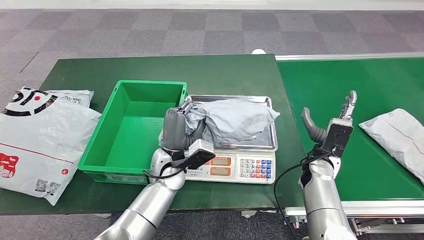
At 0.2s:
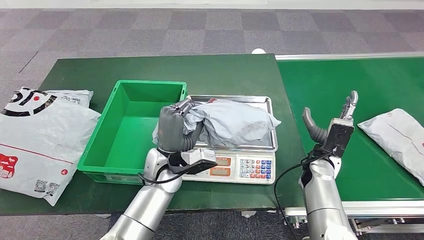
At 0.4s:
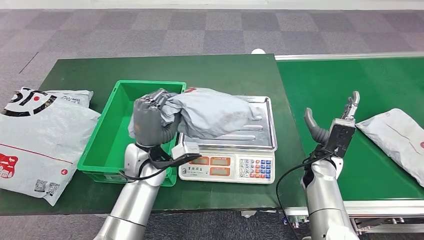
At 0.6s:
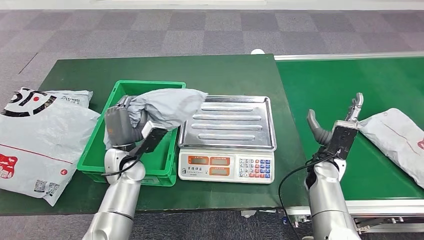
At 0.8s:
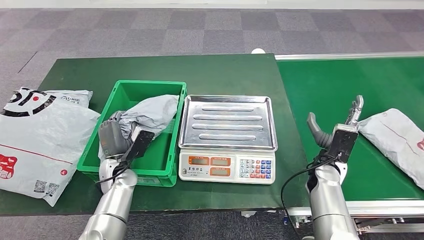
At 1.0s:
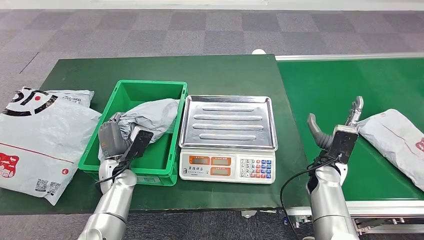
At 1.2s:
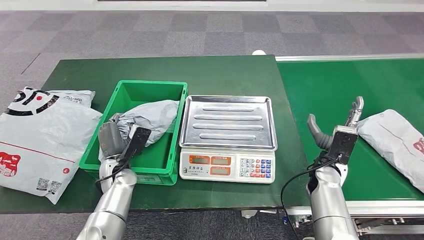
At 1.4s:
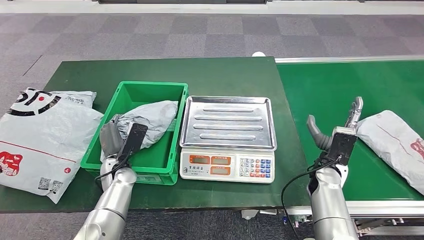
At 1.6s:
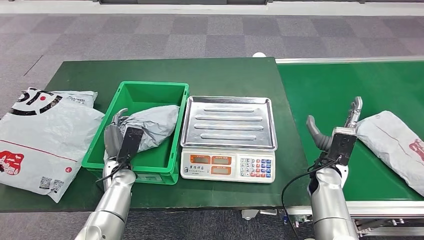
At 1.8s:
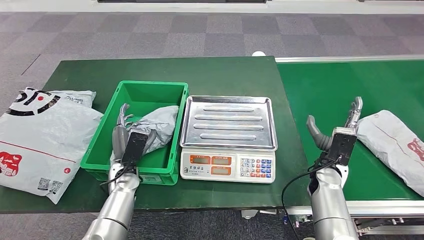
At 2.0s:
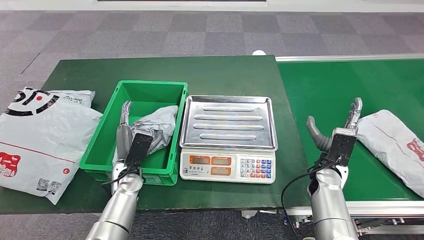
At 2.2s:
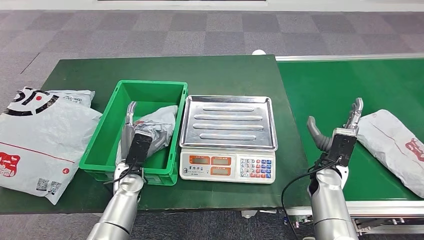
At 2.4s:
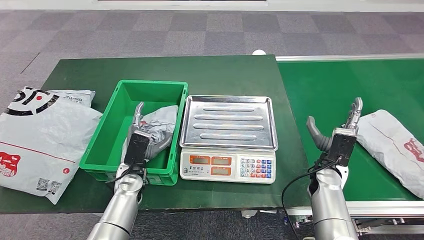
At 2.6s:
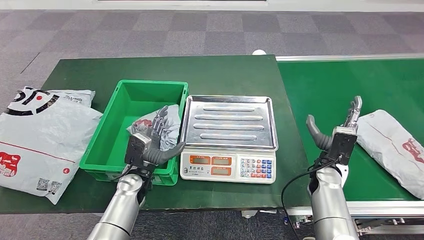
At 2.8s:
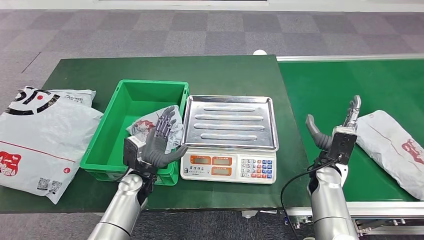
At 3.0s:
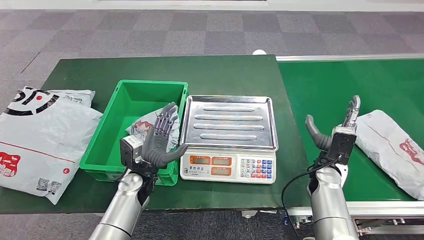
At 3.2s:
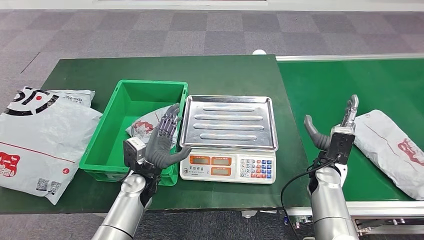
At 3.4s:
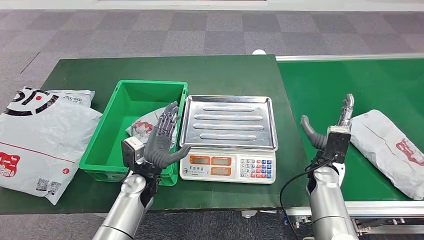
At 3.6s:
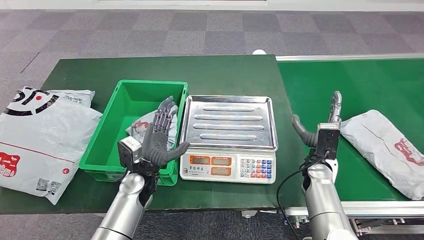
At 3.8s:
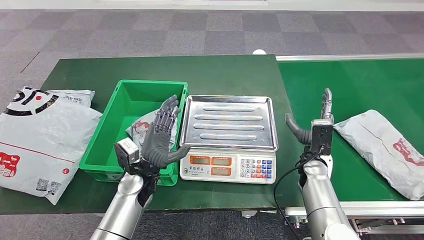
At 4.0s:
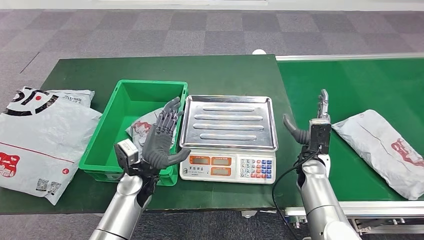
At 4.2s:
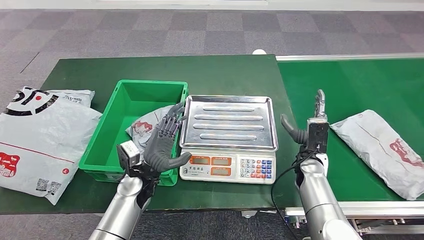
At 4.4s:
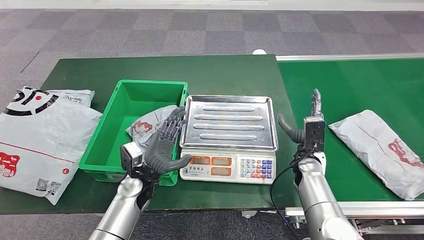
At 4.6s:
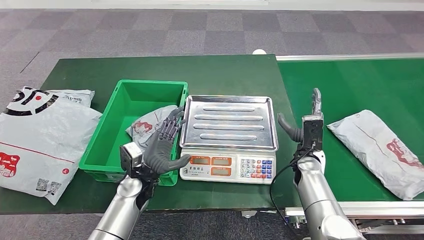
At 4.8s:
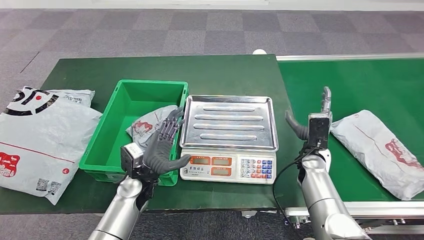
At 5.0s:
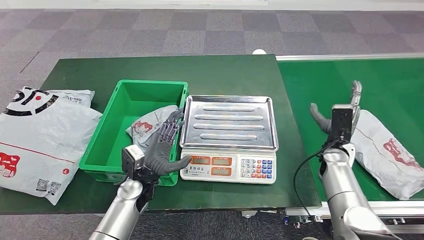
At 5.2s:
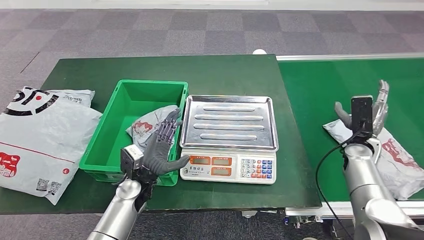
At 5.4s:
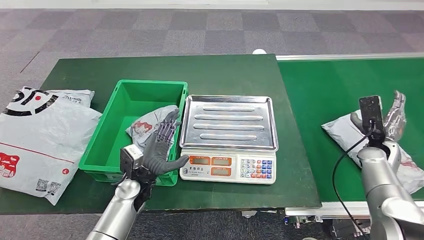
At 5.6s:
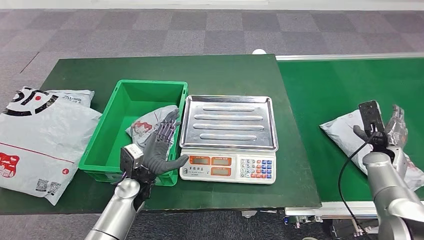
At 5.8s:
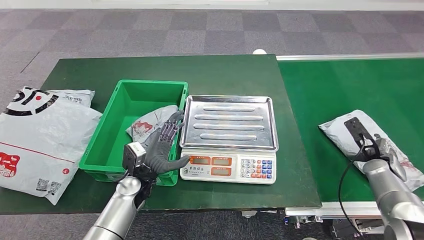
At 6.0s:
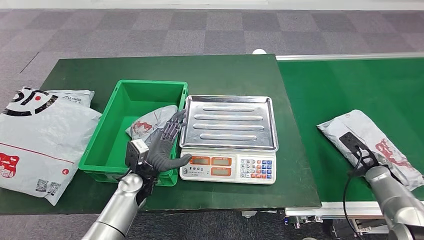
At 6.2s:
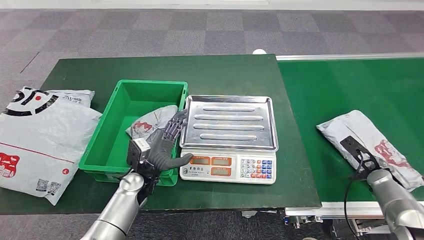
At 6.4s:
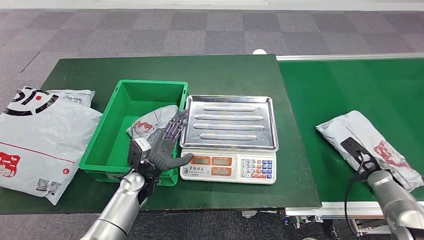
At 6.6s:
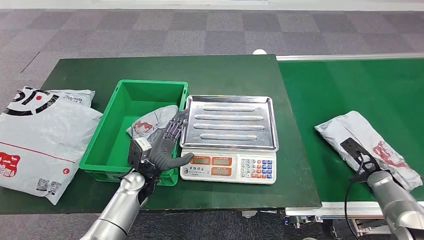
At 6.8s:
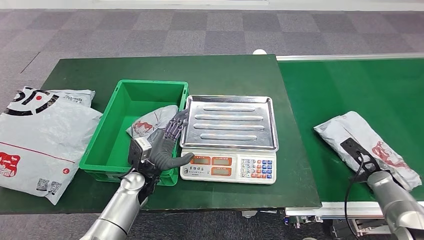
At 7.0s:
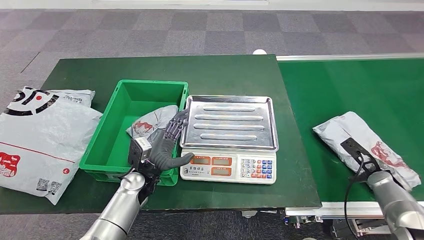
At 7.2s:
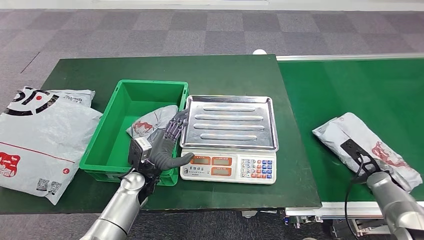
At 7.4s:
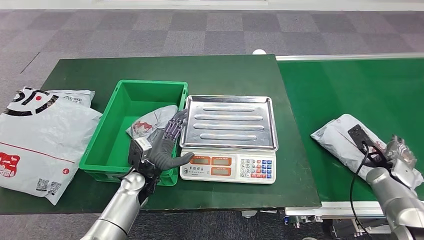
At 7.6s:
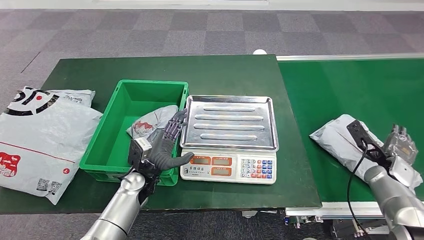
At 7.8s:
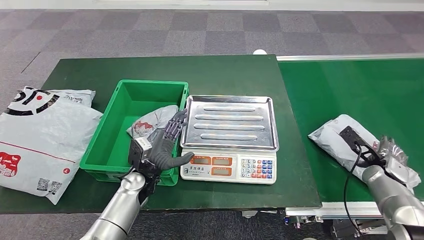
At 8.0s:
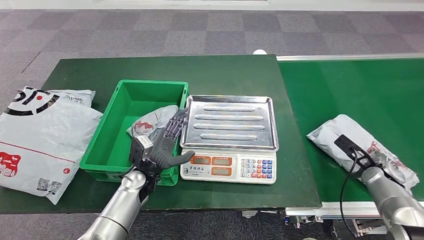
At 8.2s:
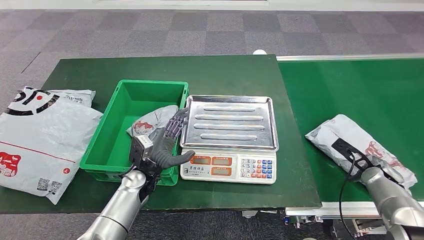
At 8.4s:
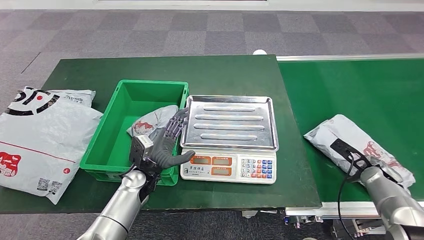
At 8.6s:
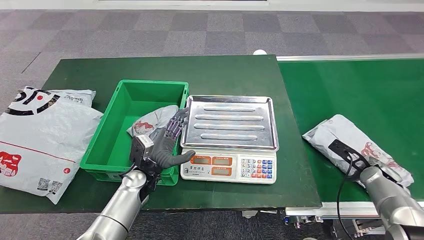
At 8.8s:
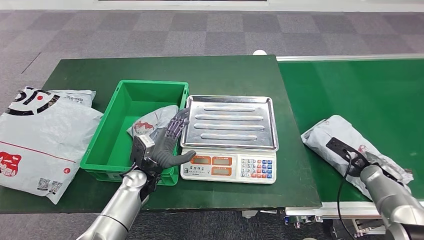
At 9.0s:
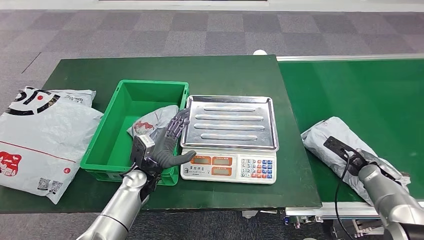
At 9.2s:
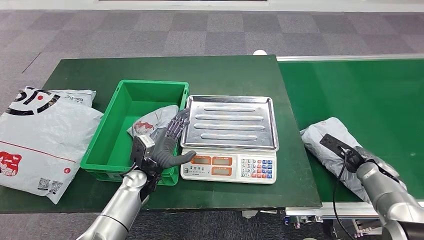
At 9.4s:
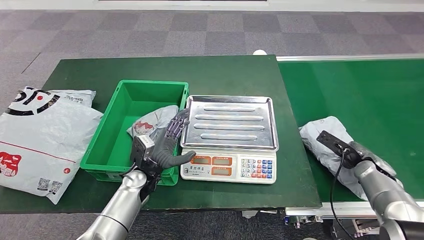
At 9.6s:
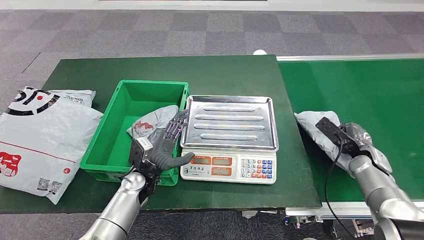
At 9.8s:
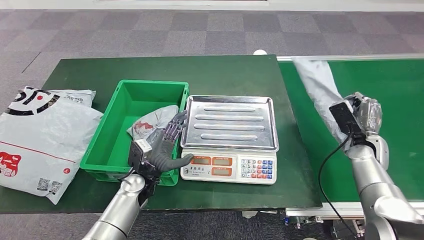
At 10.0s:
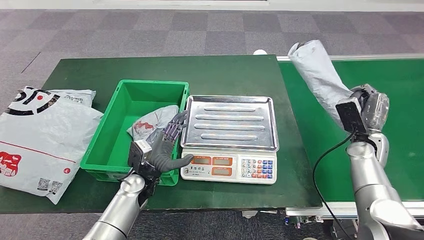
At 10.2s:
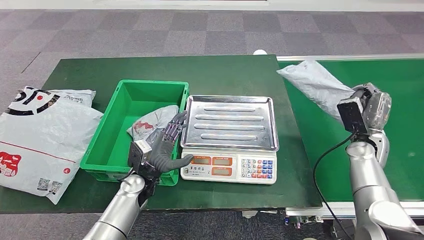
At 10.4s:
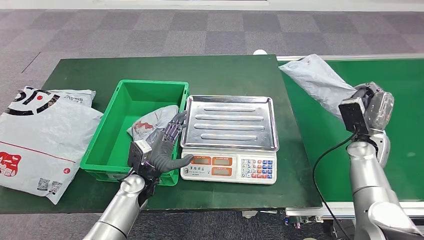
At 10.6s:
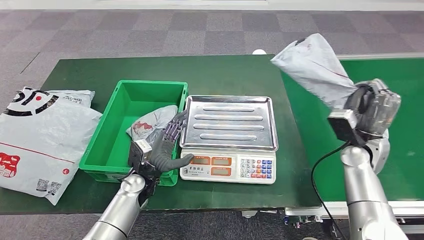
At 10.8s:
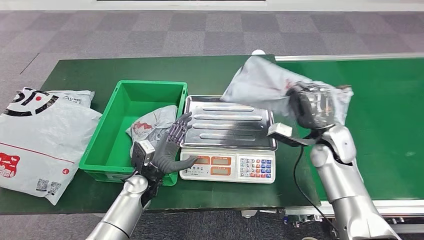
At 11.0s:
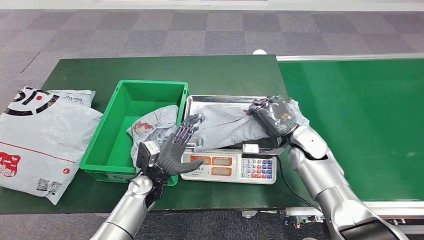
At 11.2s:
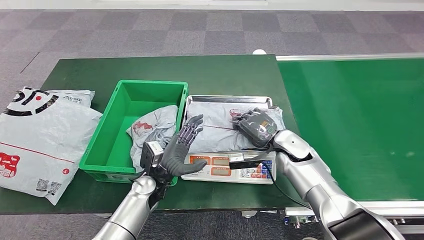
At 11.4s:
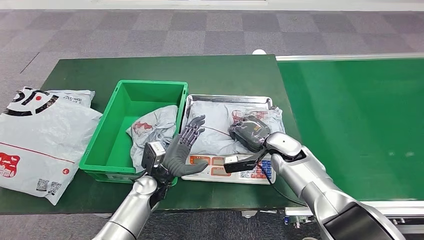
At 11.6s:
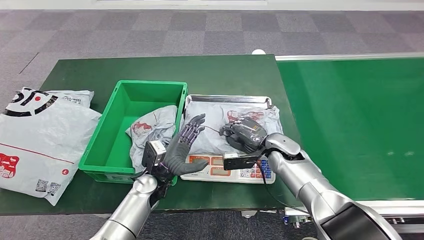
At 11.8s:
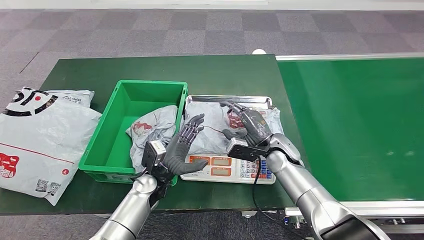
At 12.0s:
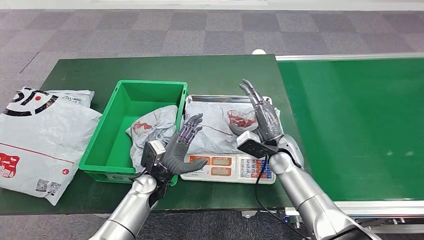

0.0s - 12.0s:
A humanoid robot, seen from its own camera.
Step, 1.2s - 4.6s: Put the parcel inside the courier box.
Step, 8.0s - 10.8s: Pick up the parcel from the conveyor belt.
3.0s - 4.4s: The hands make only small movements.
4.4s - 6.0s: The right hand is displaced to the right by some 25 cm.
9.0s - 10.4s: The right hand heads upward and to the left, covering some 10 cm.

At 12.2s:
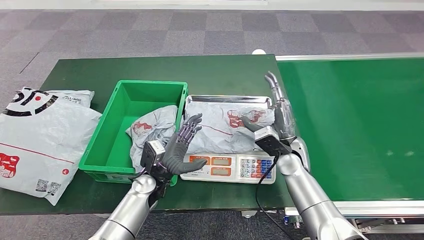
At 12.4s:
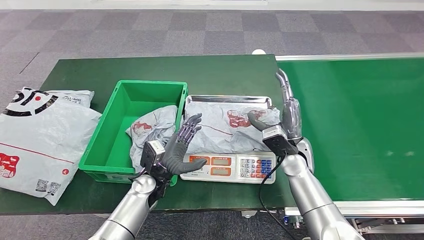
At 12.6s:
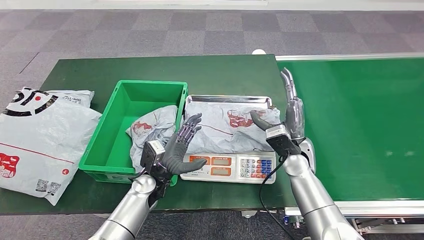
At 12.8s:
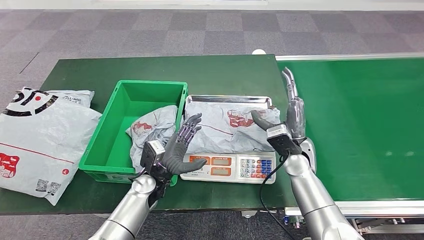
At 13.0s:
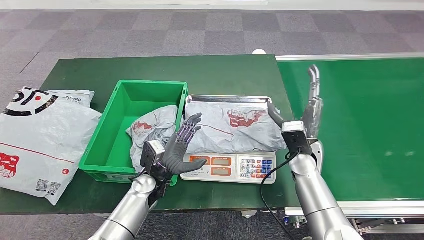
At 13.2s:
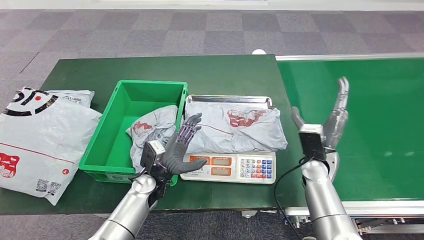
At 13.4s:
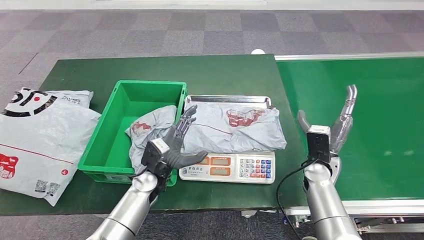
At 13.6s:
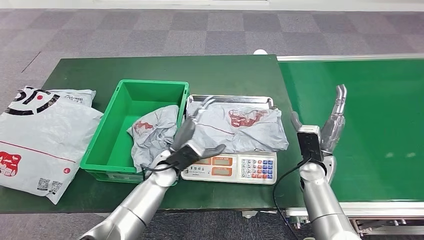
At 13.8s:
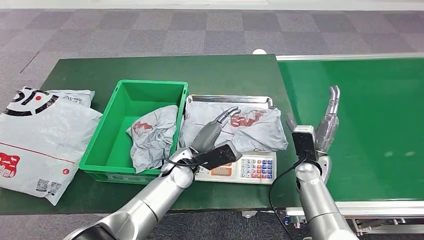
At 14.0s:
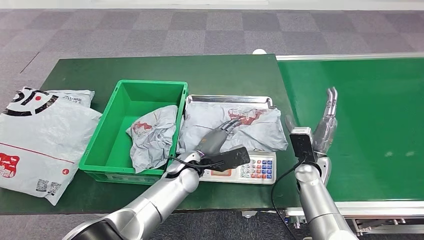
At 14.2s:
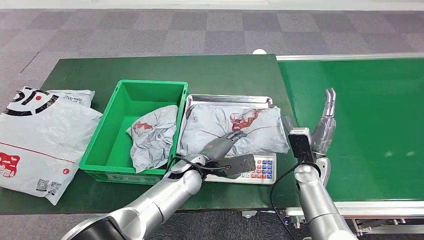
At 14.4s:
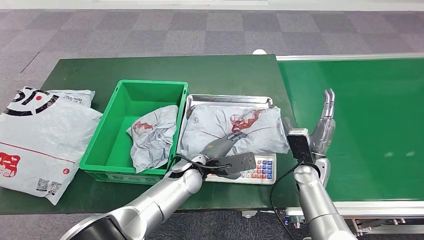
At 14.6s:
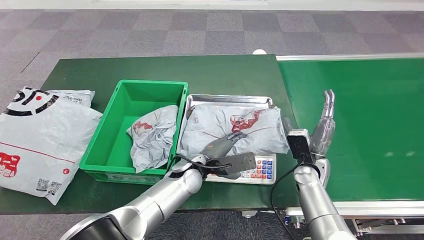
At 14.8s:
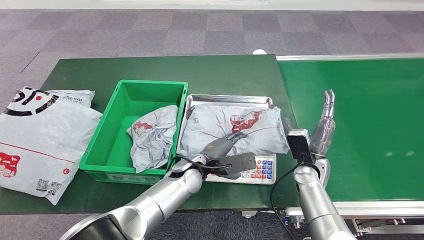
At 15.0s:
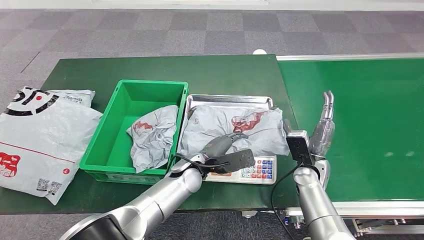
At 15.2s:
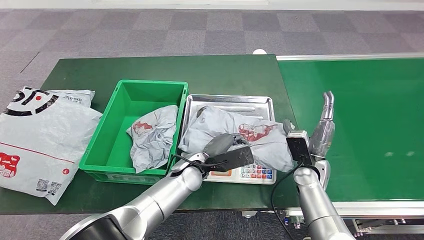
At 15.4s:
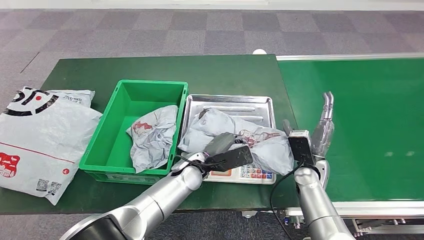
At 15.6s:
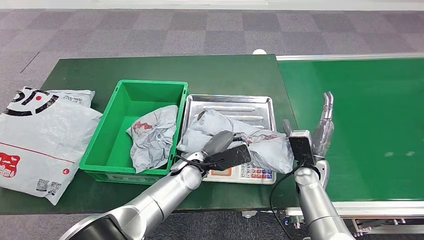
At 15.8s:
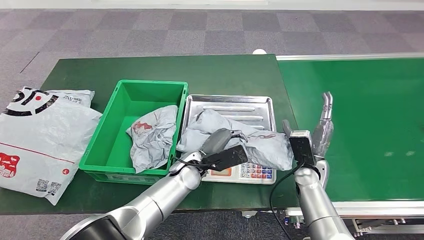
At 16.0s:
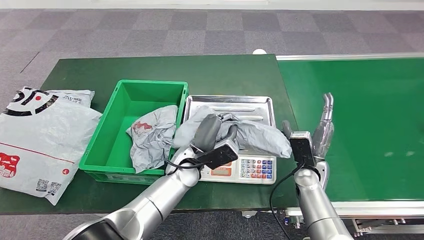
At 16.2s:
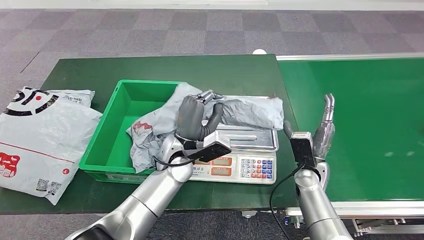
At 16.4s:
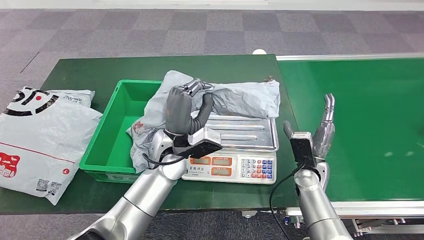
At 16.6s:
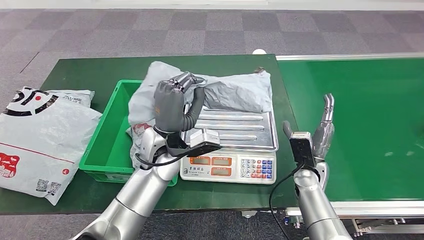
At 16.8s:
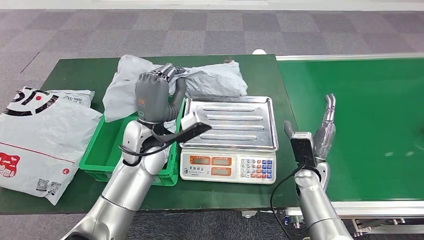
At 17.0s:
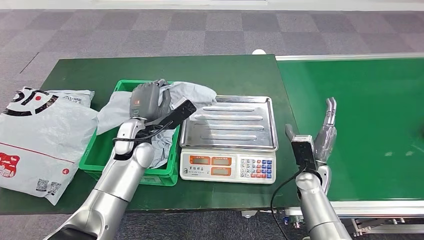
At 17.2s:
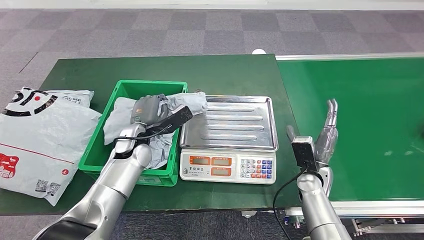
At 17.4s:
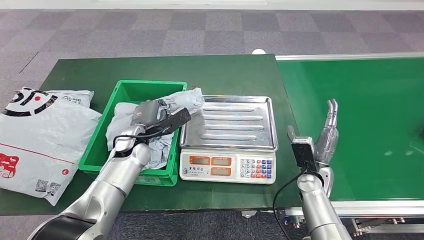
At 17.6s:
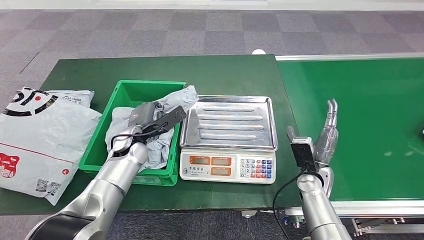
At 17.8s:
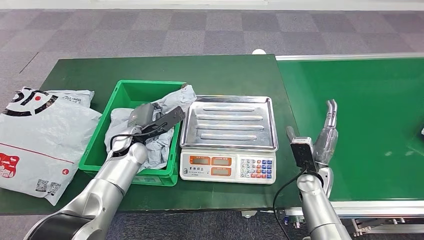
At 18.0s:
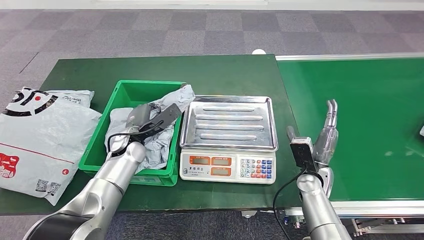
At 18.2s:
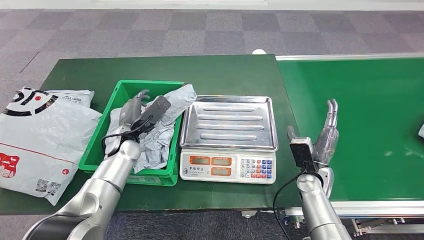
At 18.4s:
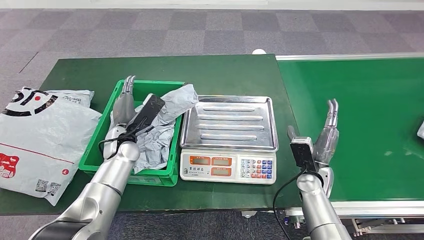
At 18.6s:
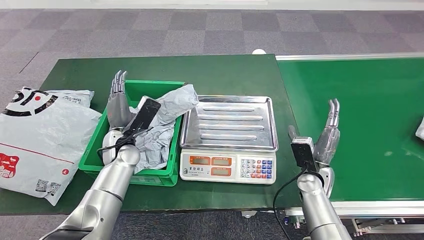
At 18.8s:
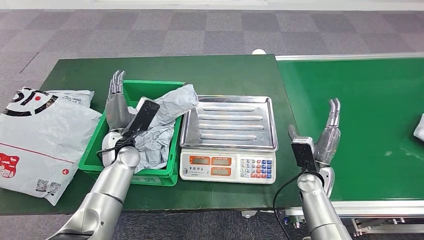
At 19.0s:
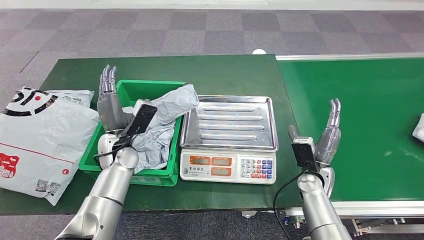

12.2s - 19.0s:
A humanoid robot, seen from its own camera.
Step, 13.6s - 16.8s: Pick up the parcel from the inbound machine.
12.2s - 13.6s: The left hand ends up approximately 5 cm from where it was; the right hand moves to the right, approximately 5 cm.
13.6s - 15.0s: The left hand moves to the right, roughly 5 cm.
15.0s - 16.2s: The left hand moves upward, approximately 5 cm.
16.2s - 17.6s: The left hand shifts roughly 15 cm to the left.
